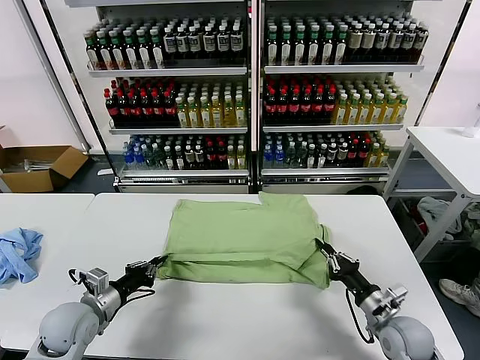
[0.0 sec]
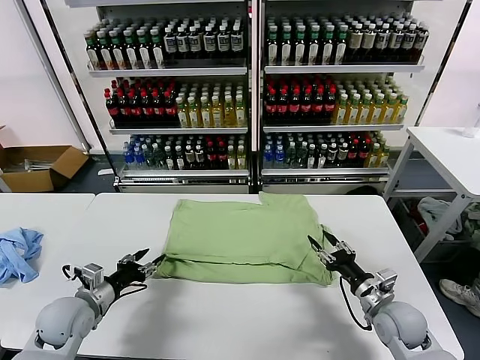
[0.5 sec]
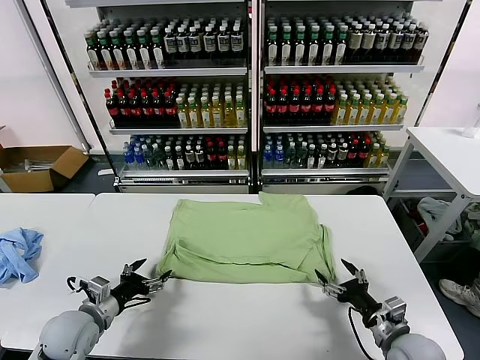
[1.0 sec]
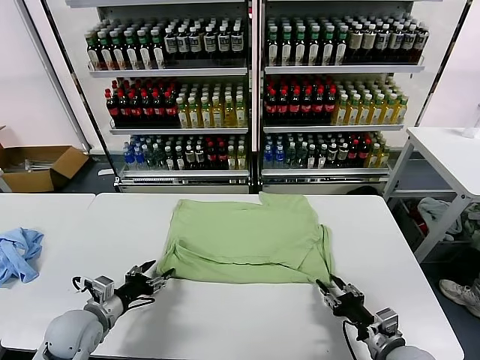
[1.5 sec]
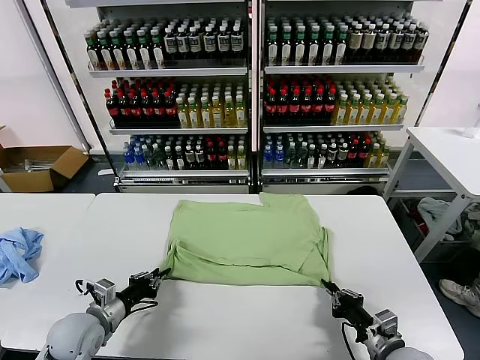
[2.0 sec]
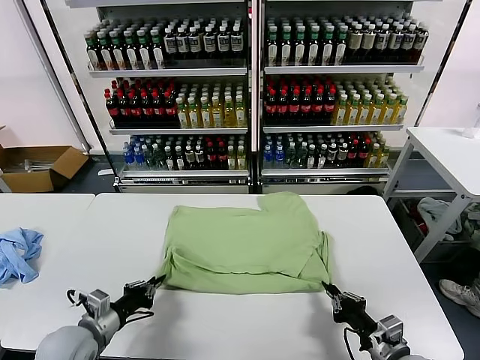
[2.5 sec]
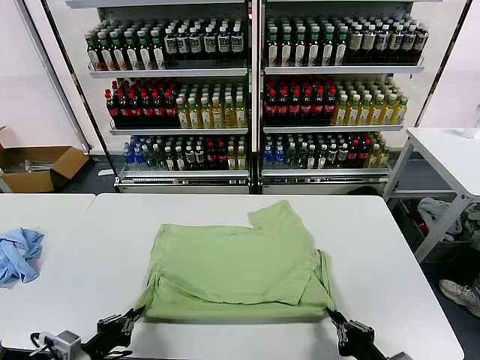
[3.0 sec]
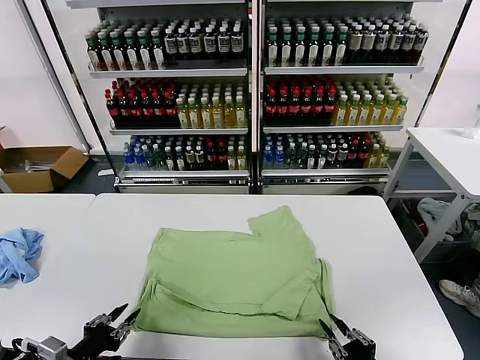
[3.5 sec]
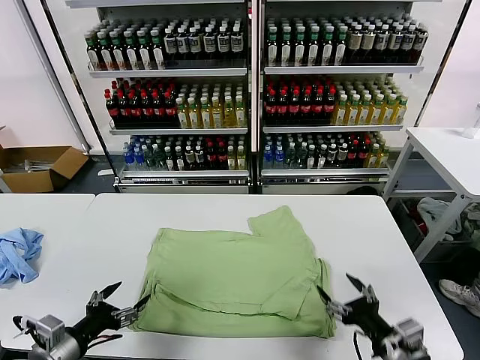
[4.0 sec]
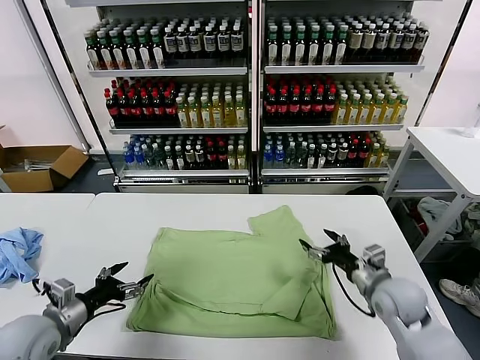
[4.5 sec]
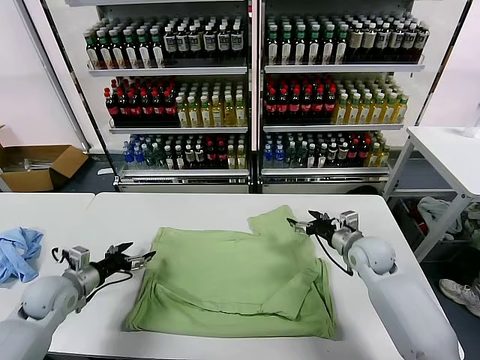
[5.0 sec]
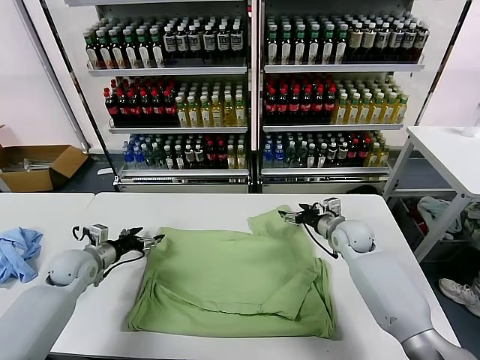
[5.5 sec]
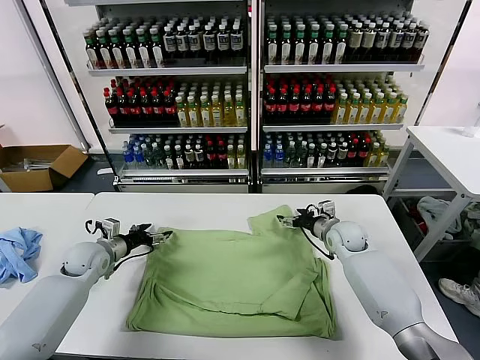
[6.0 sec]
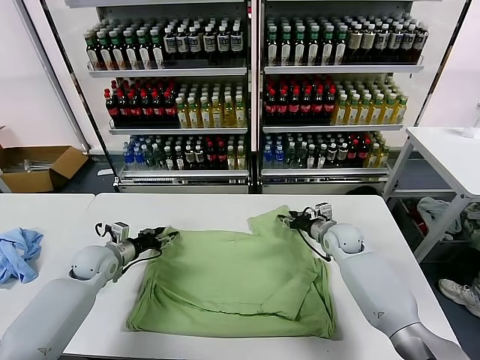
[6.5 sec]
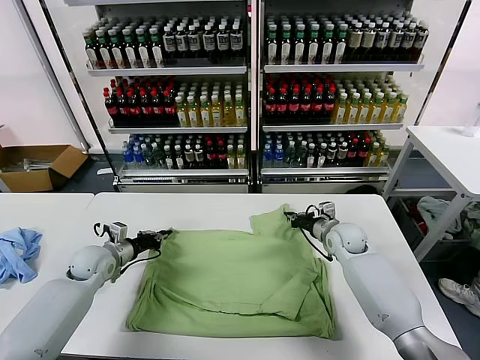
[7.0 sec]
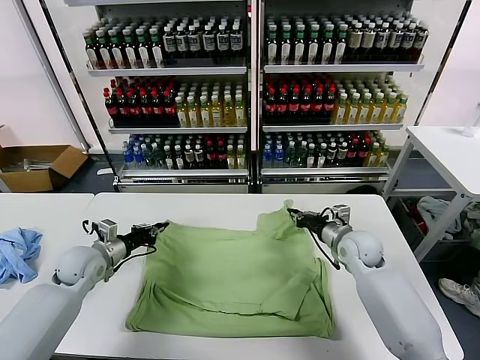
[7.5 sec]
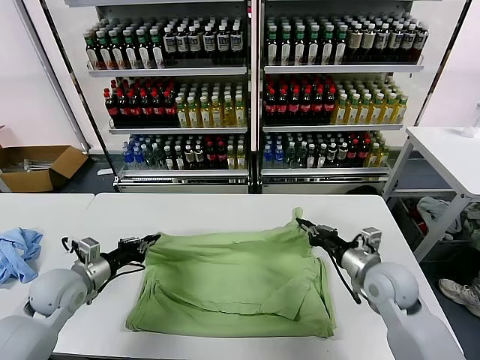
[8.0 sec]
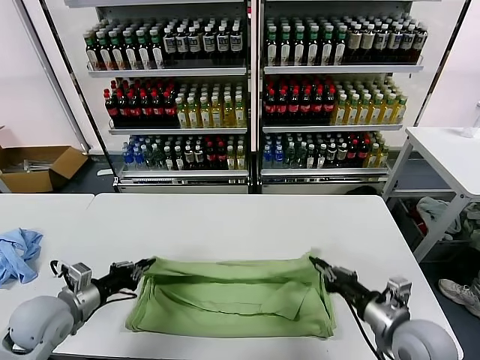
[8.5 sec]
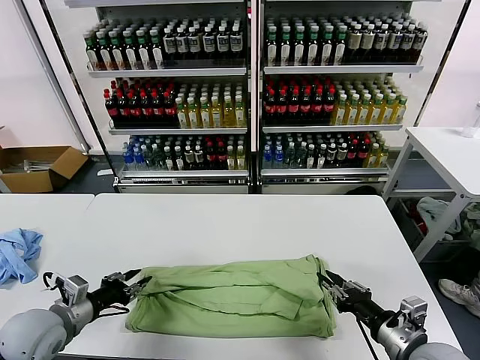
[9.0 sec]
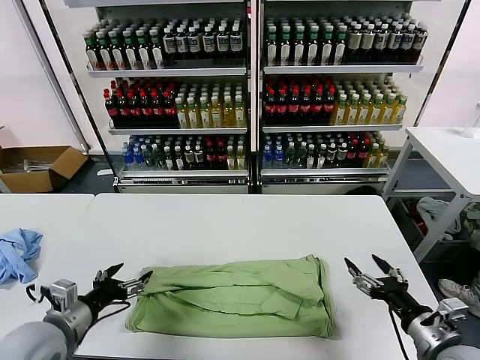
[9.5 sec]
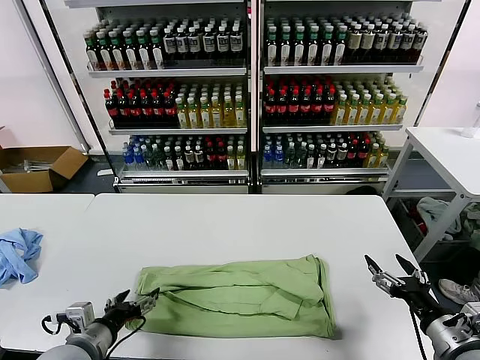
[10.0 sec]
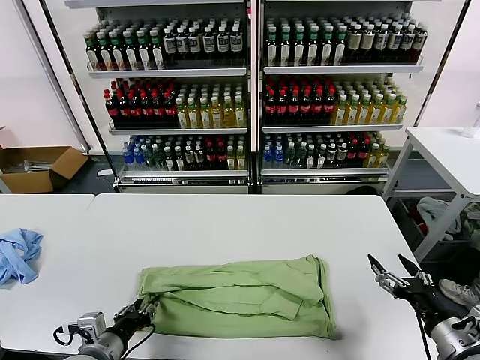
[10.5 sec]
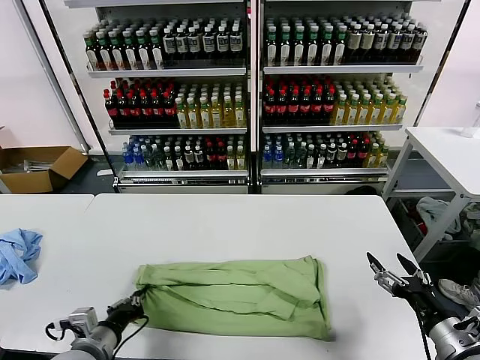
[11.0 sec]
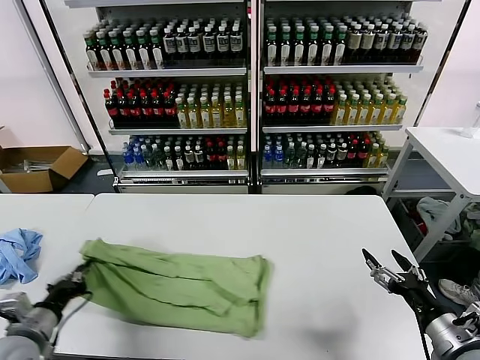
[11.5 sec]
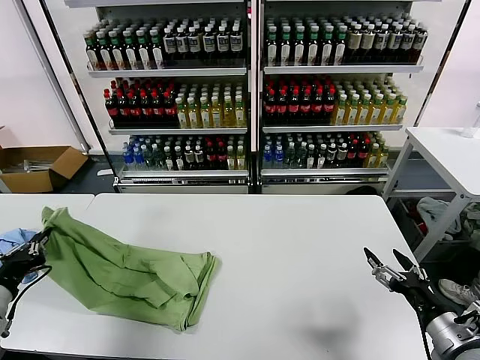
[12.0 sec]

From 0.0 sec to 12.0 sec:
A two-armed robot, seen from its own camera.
Task of the whole recording: fold and organize the clothes.
Step, from 0.5 sec to 3.5 sec: Drag the clothes downward with both gripper.
Step, from 4.0 sec to 6.5 sec: use both grippers simultaneously to clamp the upper edge of the clothing fabric.
Step, from 7.0 sec to 8.5 sec: use both grippers to drag the upper edge of the fabric backward and fold it over the lower edge.
Step, from 9.5 sec to 10.5 sec: use the left gripper to clamp the left edge of the fabric.
From 0.0 sec to 2.0 sec: The right gripper shifts approximately 10 cm backward, and opens and closes again. Meanwhile the left gripper opens, then closes once more.
From 2.0 sec to 4.0 sec: The left gripper goes some 10 cm backward and upward, and opens. Meanwhile the right gripper heads upward, covering roughly 10 cm, goes backward and returns, approximately 10 cm each way, and opens its fingers.
From 4.0 sec to 6.0 sec: The grippers both shift forward by about 30 cm.
From 6.0 sec to 8.0 sec: The left gripper heads backward and upward, covering roughly 10 cm, and closes; the right gripper goes about 20 cm backward, and closes up.
From 8.0 sec to 10.0 sec: The grippers both shift backward and to the right by some 15 cm. The right gripper opens up. Meanwhile the left gripper opens its fingers.
From 10.0 sec to 12.0 sec: The left gripper travels to the left and upward by some 15 cm, and closes.

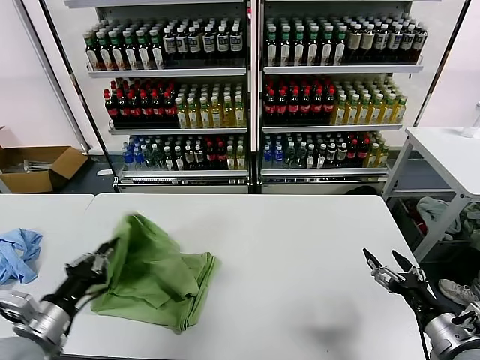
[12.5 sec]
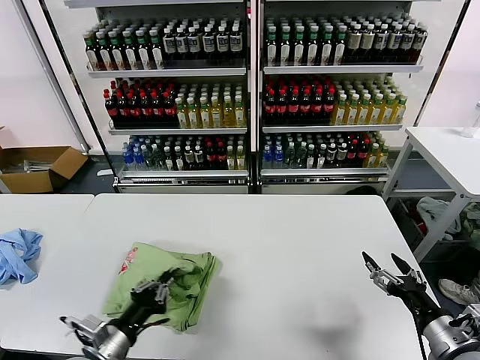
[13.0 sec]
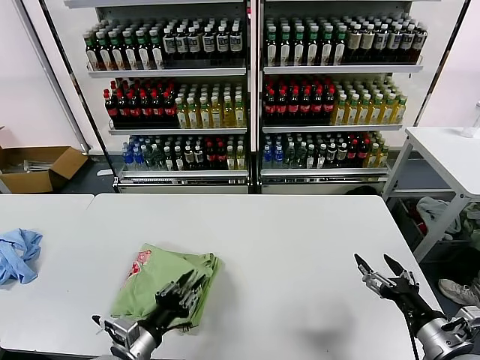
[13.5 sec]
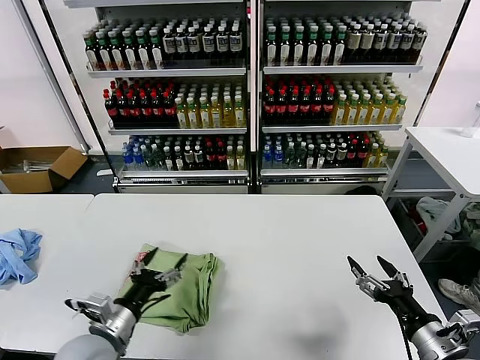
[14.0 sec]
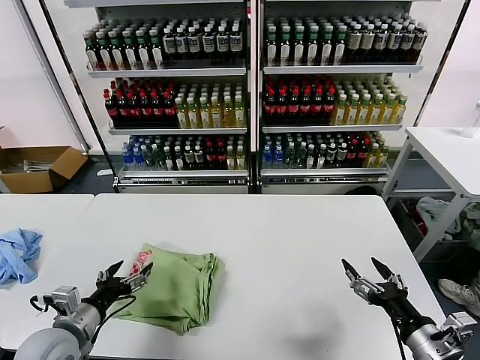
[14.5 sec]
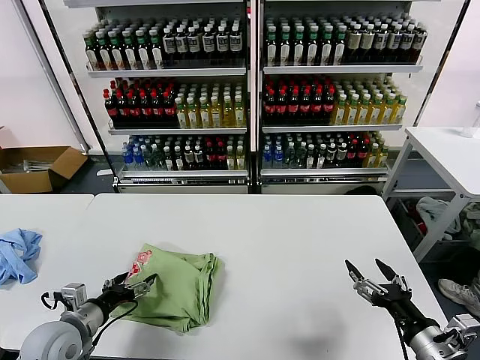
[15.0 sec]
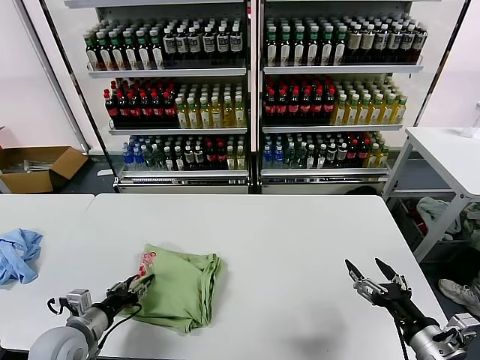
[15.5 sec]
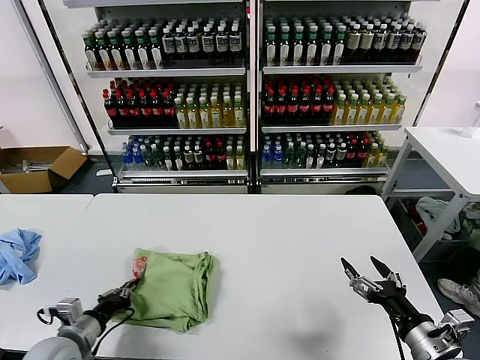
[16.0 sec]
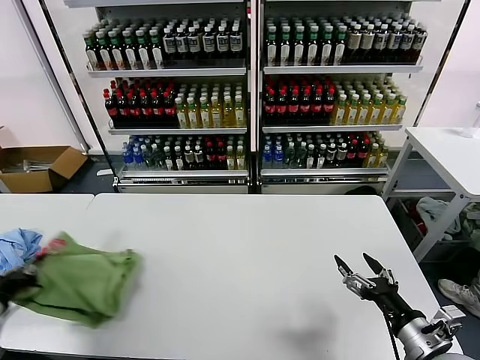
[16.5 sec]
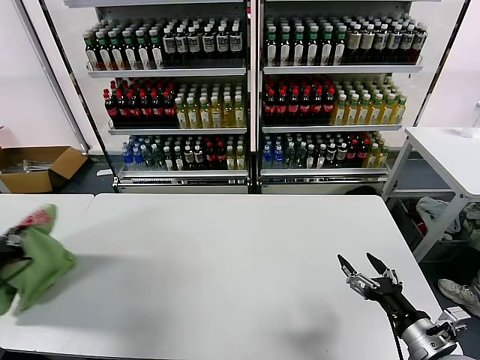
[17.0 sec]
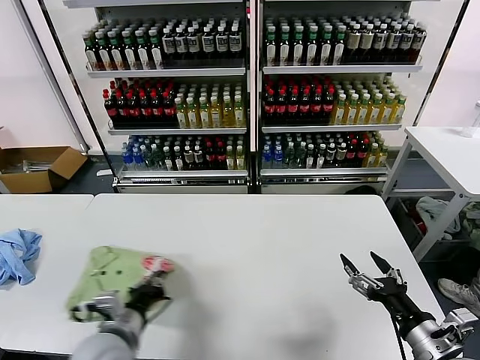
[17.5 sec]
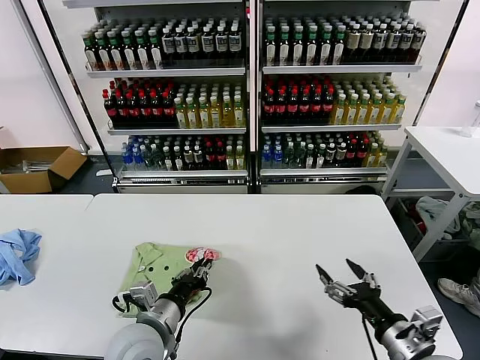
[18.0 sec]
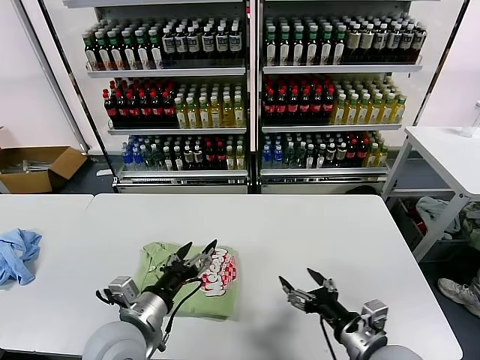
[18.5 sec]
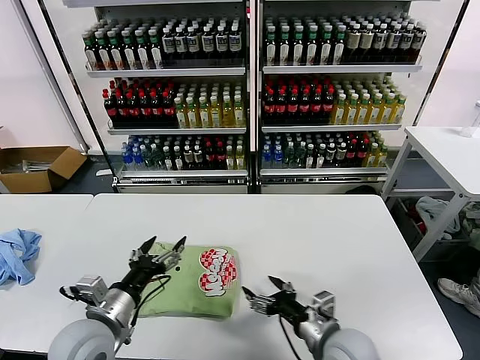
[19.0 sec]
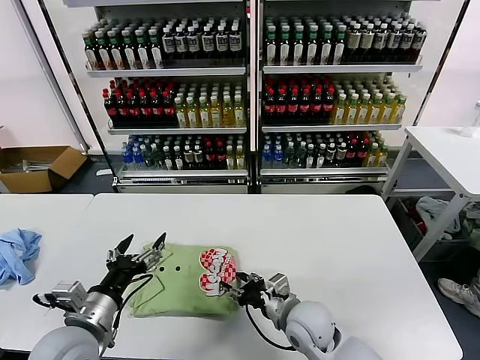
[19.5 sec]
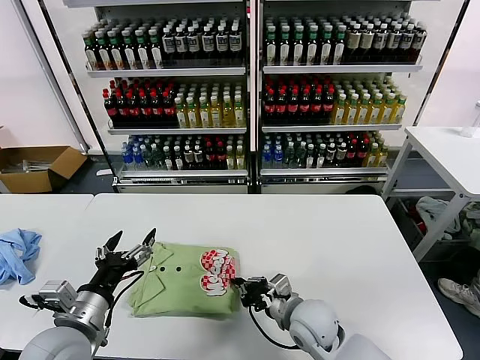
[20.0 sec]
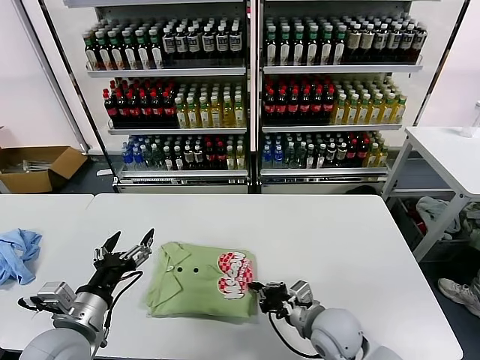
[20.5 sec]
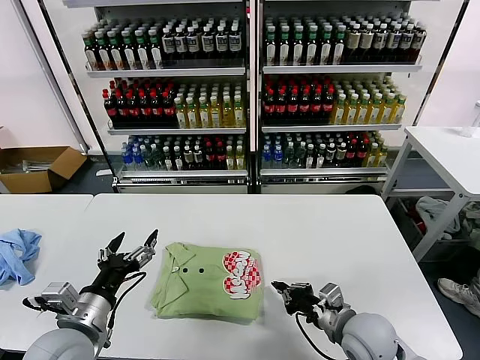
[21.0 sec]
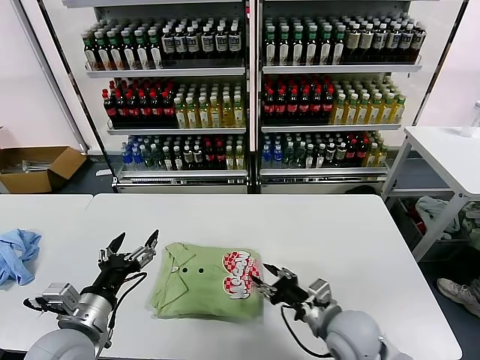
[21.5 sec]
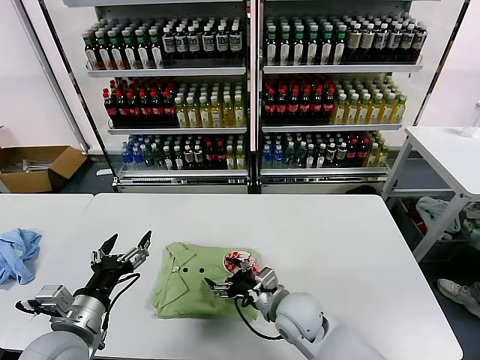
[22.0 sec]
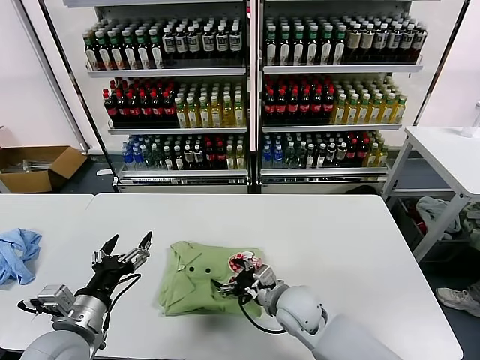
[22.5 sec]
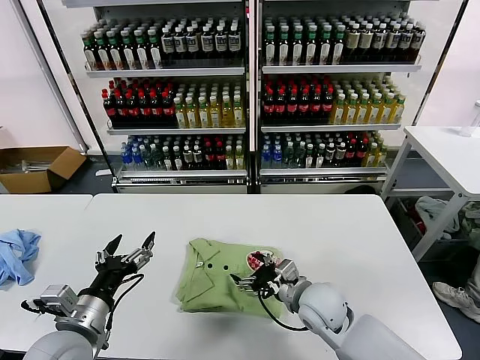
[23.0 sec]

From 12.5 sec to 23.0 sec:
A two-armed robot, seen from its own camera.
Task of the whole recording: fold and organize the clothes.
Step, from 14.0 sec to 18.0 sec: Flip the folded clothes over with left gripper.
From 12.5 sec to 14.5 sec: The left gripper travels to the right and back again, approximately 10 cm each way, and opens its fingers.
From 14.5 sec to 16.5 sec: The left gripper is displaced to the left by roughly 15 cm, and closes its fingers.
From 16.5 sec to 19.0 sec: The left gripper goes some 25 cm to the right, and opens. The right gripper travels to the left and forward by some 15 cm.
From 19.0 sec to 21.0 sec: The right gripper closes up.
From 21.0 sec to 23.0 sec: The right gripper heads to the left and forward, covering about 10 cm, and opens up.

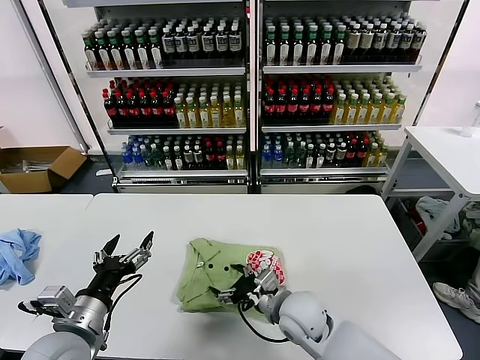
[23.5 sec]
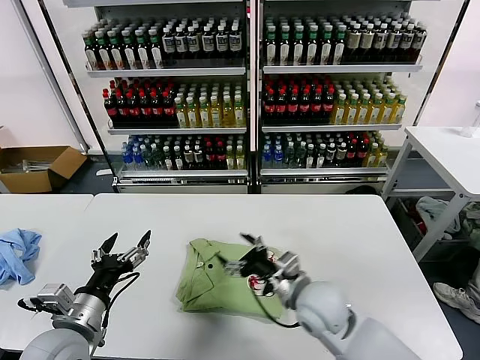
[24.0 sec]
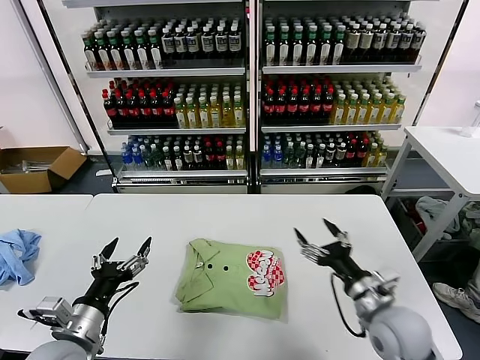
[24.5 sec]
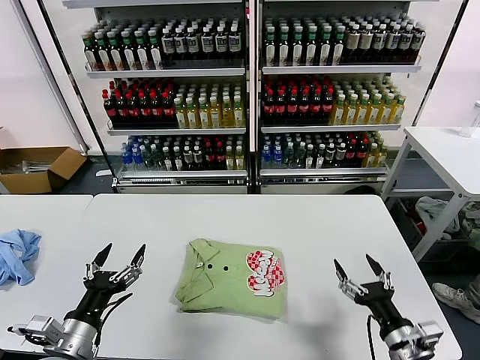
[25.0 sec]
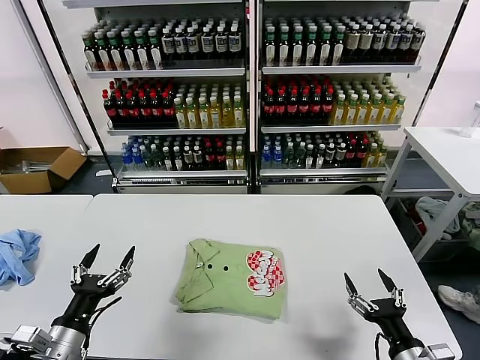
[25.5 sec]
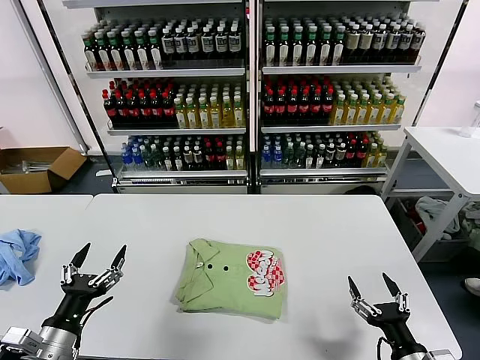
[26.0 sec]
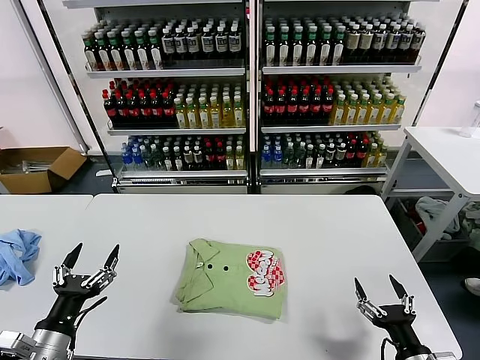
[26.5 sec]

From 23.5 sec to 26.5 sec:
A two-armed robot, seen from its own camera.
Task of the whole recording: fold and organize the clothes.
From 23.5 sec to 25.0 sec: The right gripper moves to the right and backward, approximately 25 cm, while the left gripper shifts by about 5 cm.
From 25.0 sec to 26.5 sec: The right gripper is displaced backward by some 5 cm.
